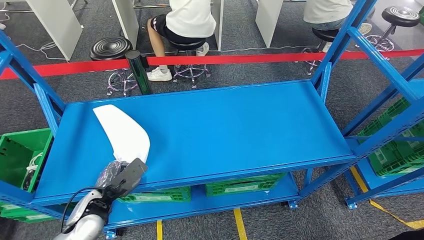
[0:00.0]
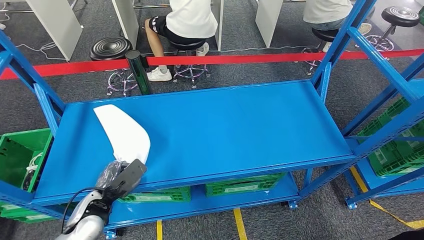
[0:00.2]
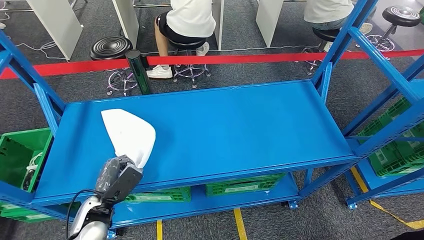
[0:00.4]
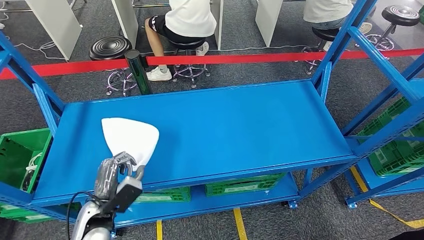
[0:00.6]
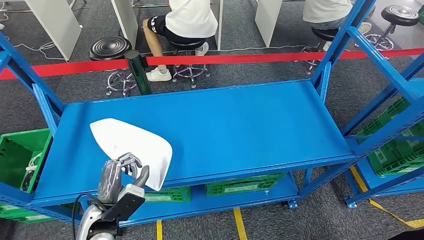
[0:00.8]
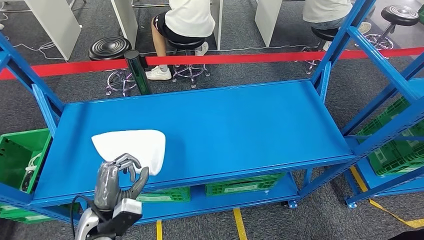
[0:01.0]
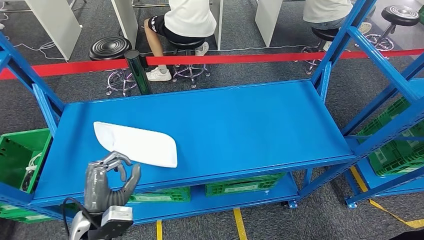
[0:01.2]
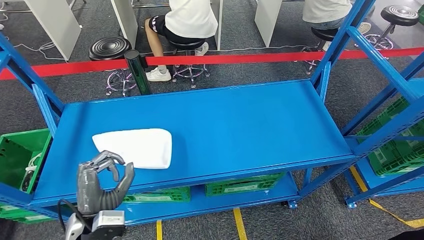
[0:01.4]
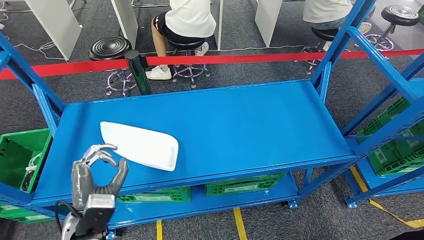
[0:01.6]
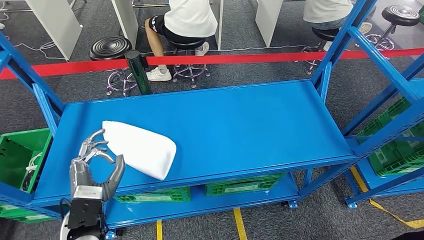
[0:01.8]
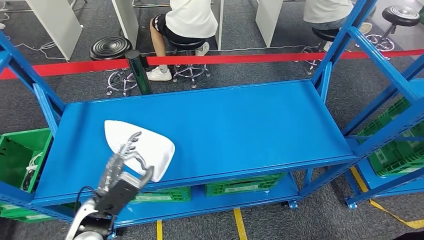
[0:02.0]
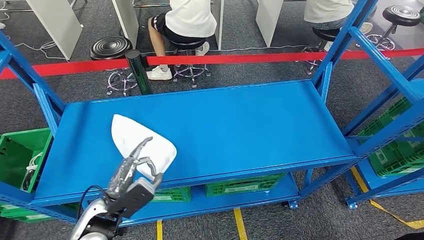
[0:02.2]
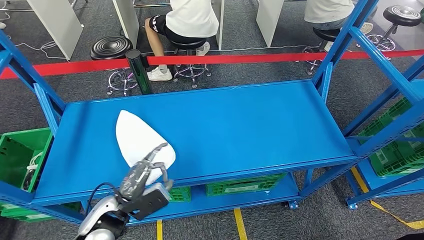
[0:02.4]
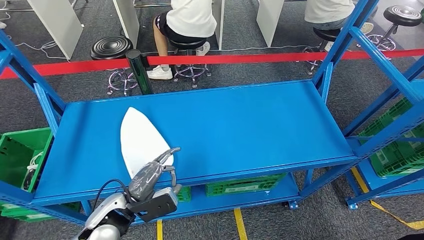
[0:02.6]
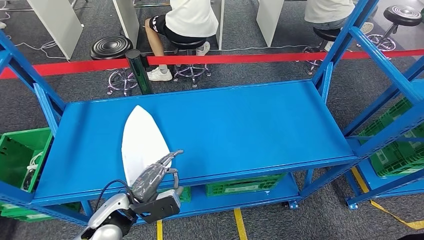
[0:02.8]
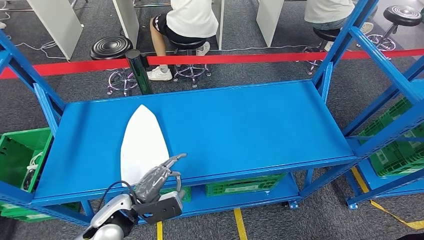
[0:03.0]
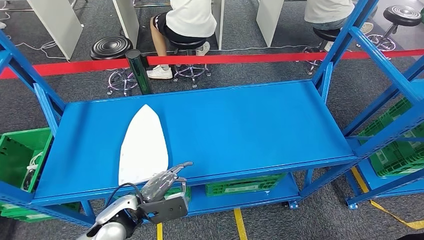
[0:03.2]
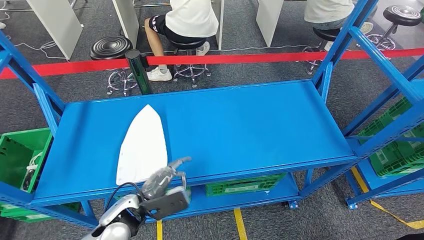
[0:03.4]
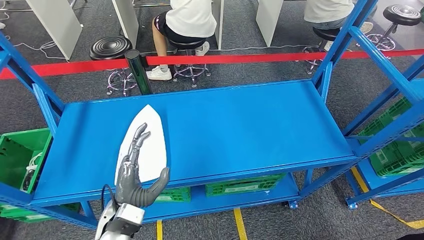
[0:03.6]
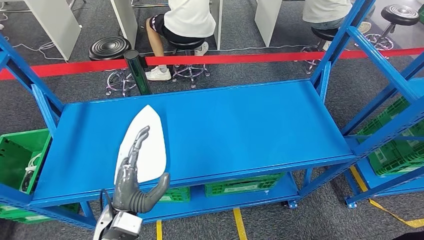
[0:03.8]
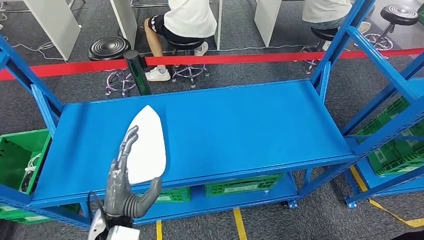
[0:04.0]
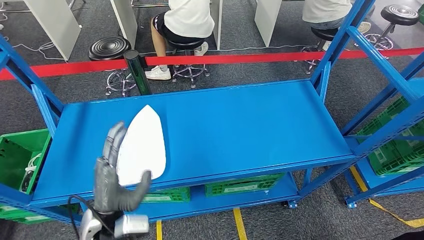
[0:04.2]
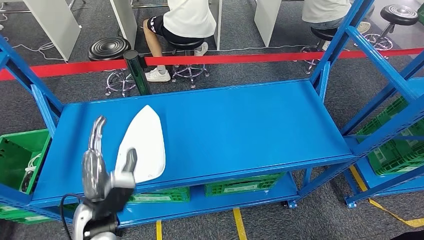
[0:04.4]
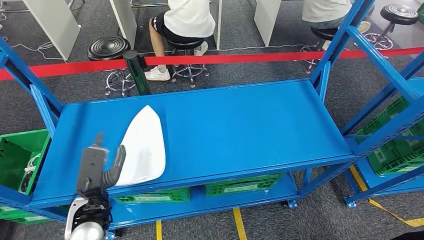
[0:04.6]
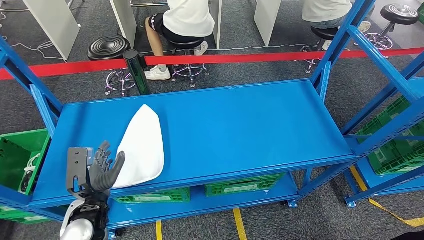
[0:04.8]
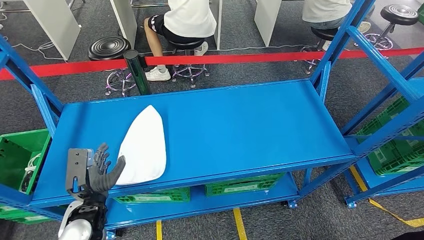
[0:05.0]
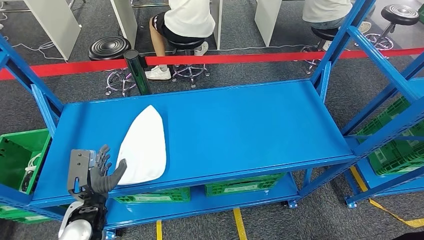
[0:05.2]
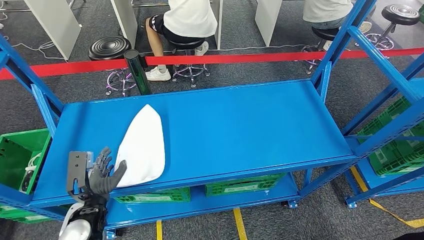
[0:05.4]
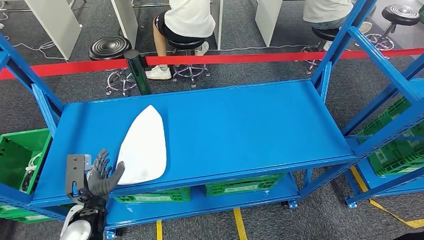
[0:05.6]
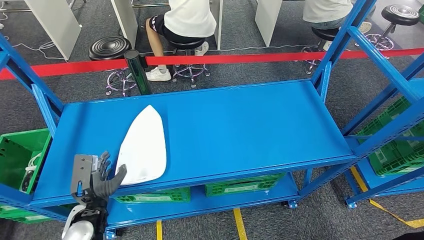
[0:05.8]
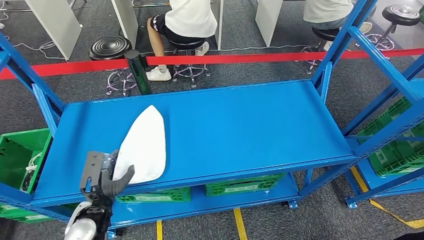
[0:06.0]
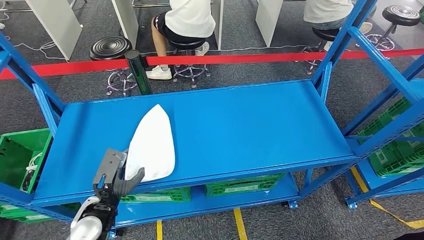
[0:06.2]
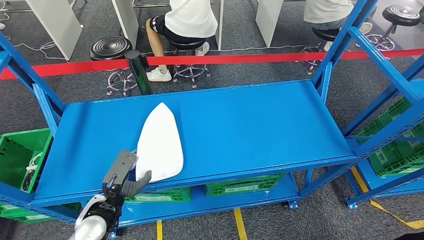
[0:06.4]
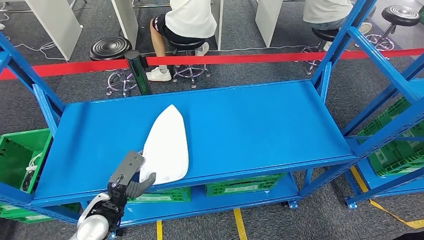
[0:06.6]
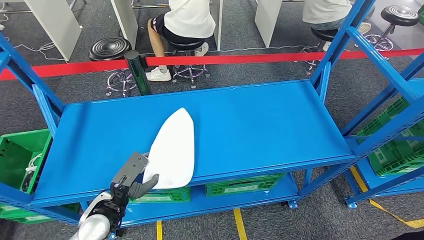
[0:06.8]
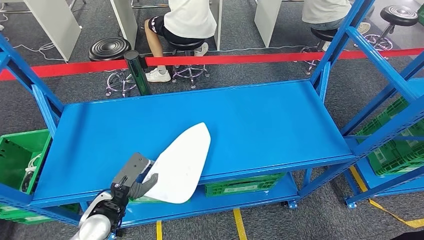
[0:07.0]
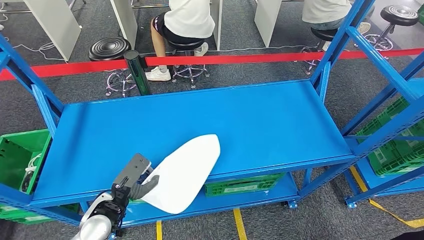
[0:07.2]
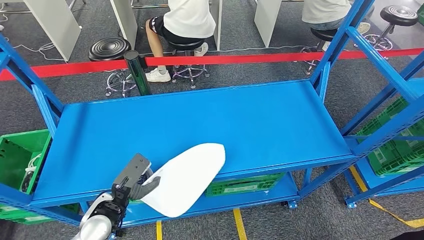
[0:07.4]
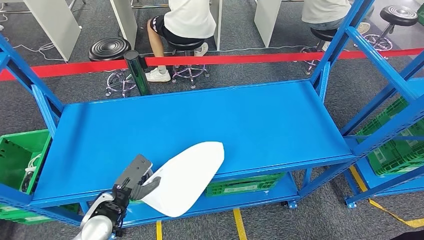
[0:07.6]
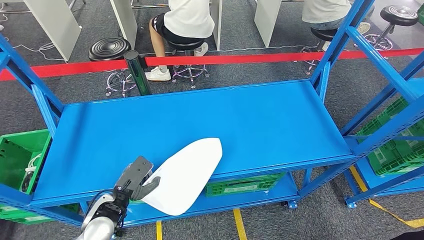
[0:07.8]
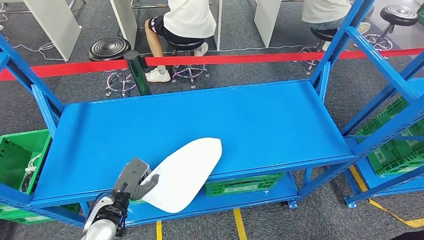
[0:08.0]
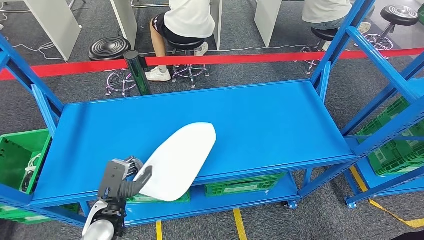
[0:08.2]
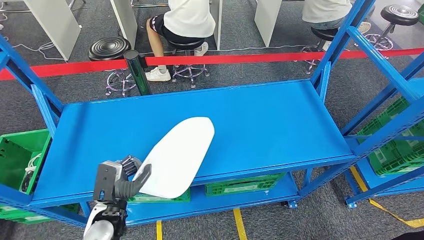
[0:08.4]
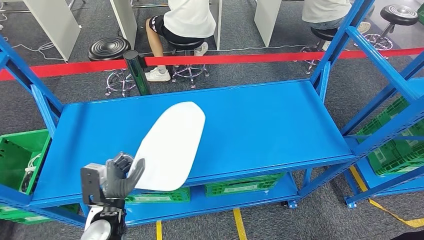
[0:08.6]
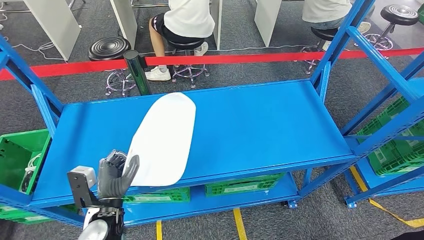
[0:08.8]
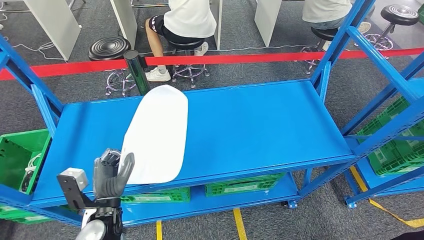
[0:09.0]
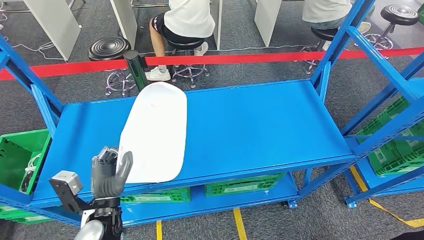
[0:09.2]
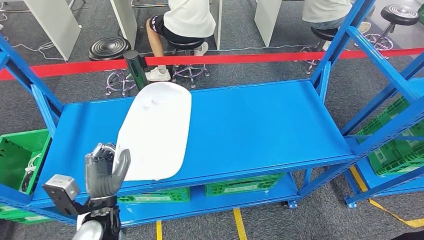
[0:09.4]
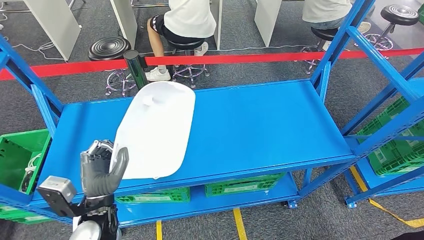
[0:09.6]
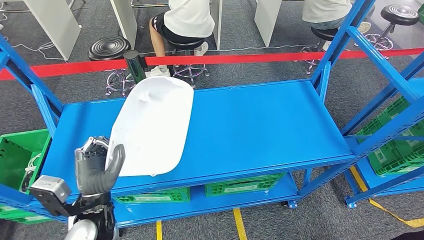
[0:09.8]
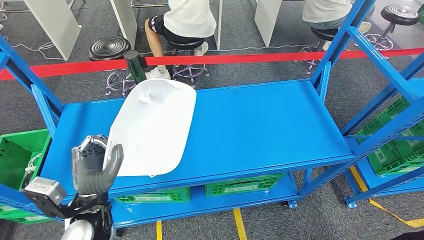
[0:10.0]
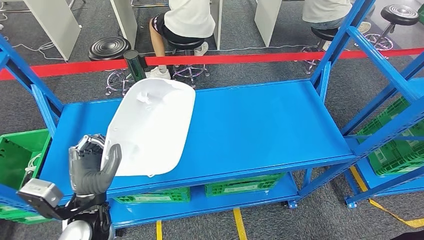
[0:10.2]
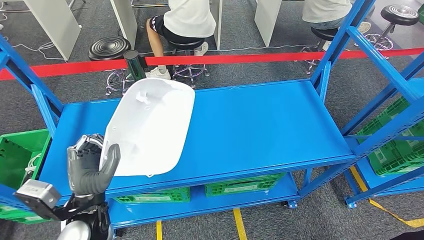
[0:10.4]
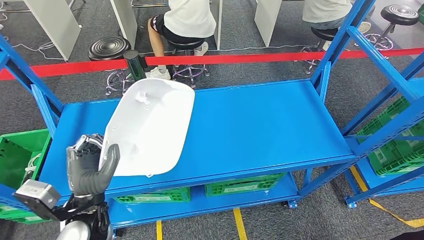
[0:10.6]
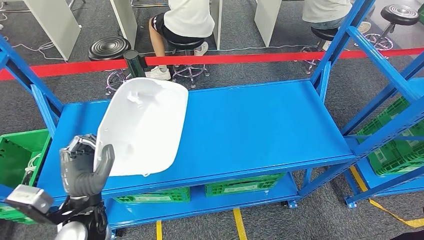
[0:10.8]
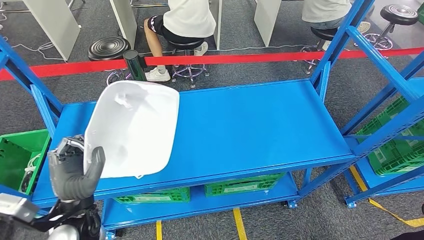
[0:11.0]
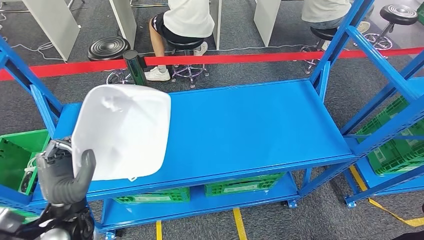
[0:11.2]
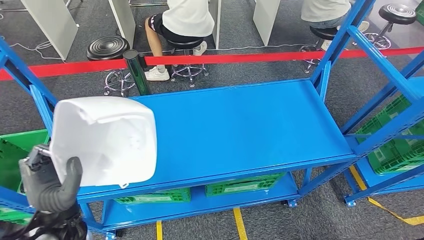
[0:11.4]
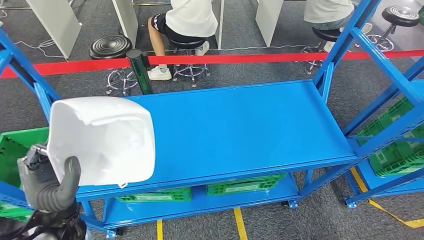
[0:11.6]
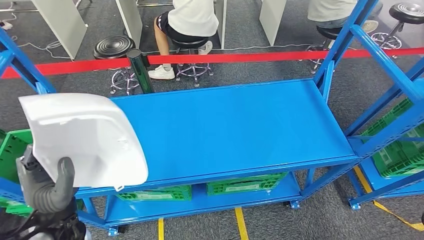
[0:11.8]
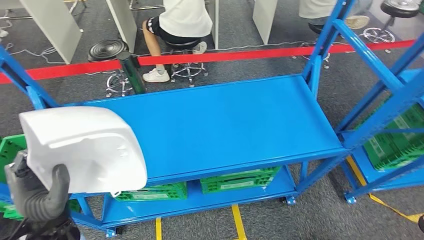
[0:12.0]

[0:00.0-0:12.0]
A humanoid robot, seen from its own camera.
Step, 0:00.0 to 0:10.8: Pick up the small parts from the shelf.
0:00.0 to 0:01.6: The left hand travels upward and backward by some 10 cm.
0:04.4 to 0:06.0: The left hand is displaced downward and to the left by about 10 cm.
0:09.0 to 0:10.4: The left hand goes roughly 5 cm upward.

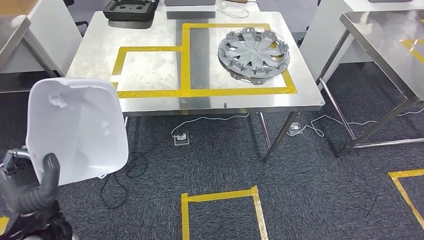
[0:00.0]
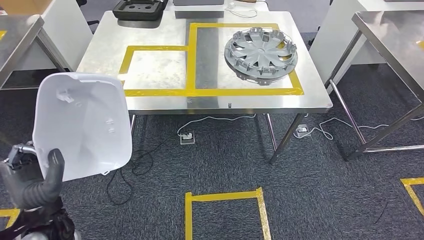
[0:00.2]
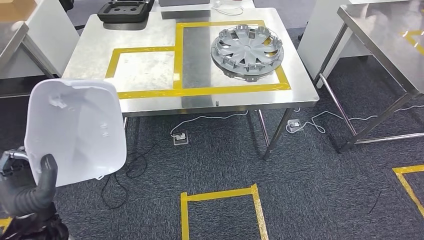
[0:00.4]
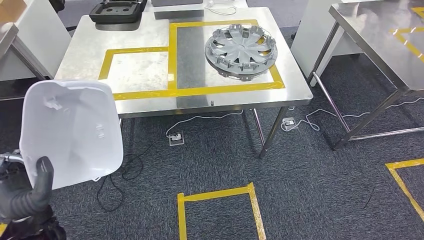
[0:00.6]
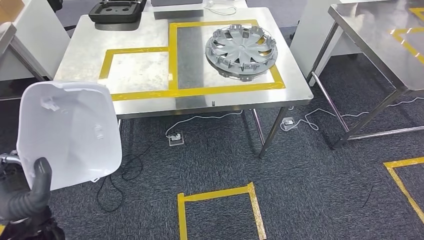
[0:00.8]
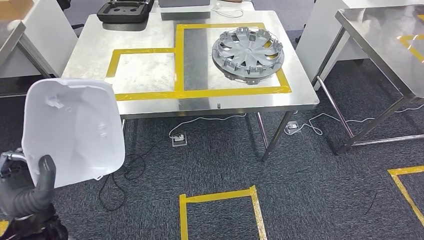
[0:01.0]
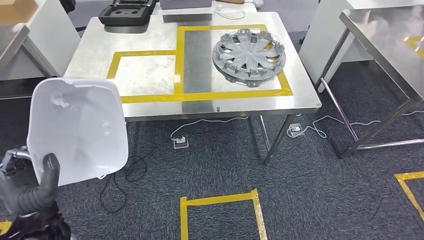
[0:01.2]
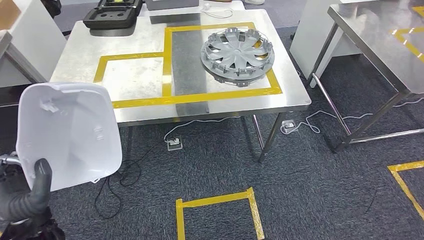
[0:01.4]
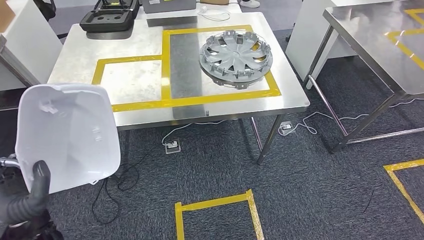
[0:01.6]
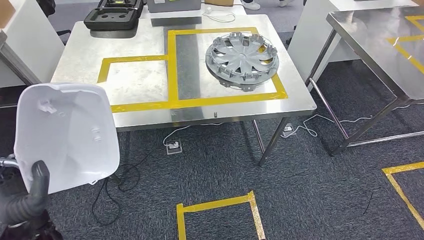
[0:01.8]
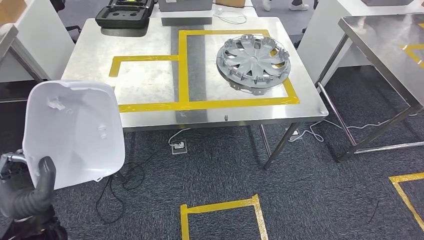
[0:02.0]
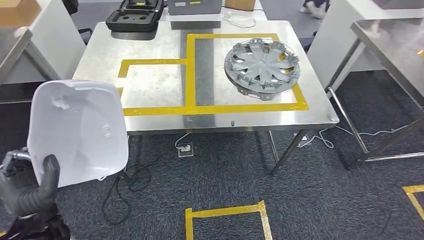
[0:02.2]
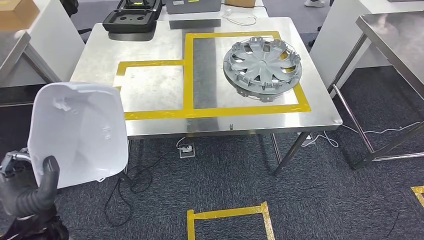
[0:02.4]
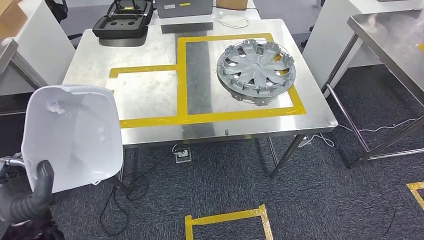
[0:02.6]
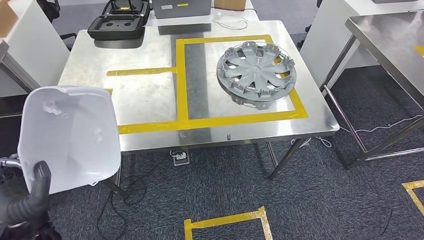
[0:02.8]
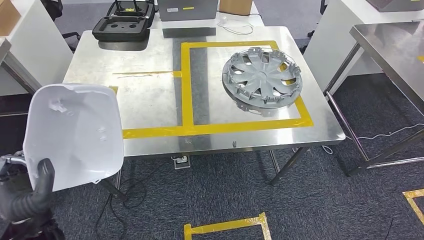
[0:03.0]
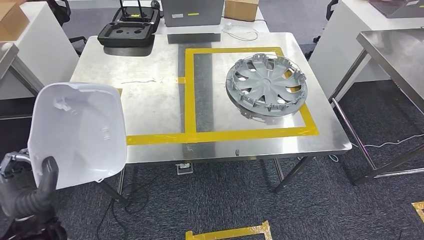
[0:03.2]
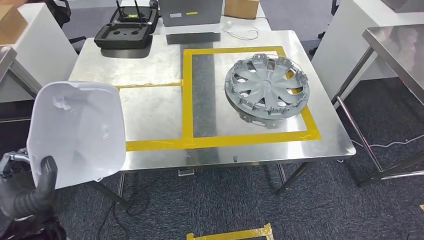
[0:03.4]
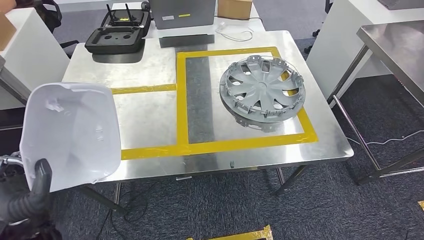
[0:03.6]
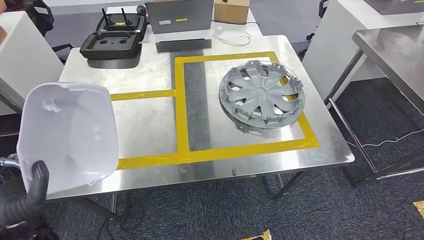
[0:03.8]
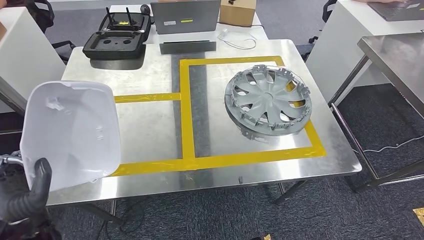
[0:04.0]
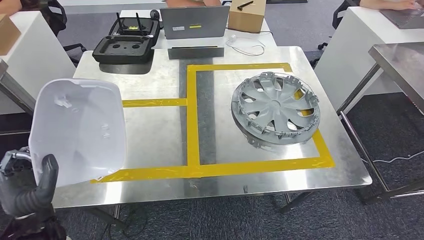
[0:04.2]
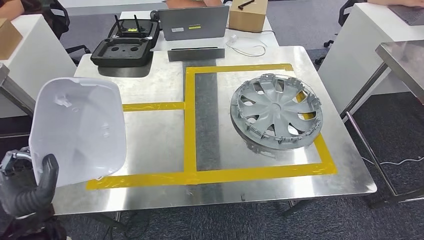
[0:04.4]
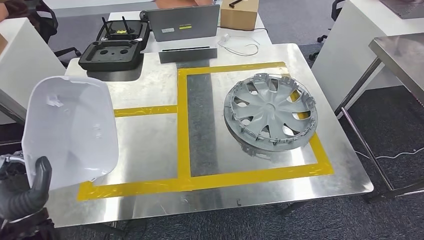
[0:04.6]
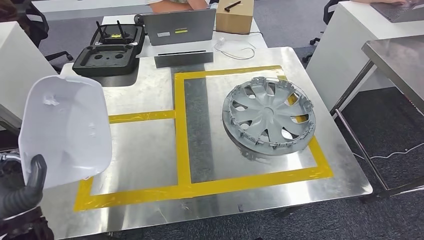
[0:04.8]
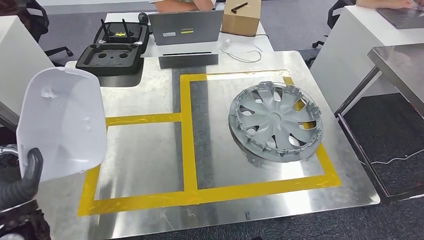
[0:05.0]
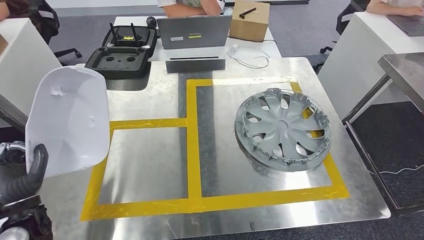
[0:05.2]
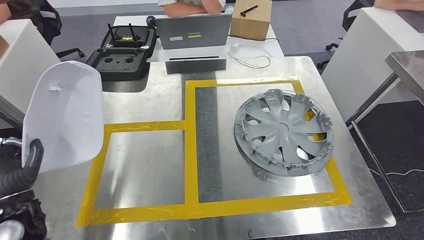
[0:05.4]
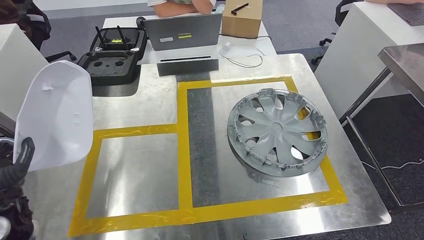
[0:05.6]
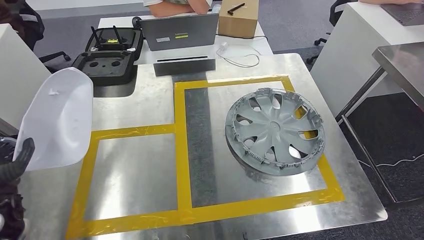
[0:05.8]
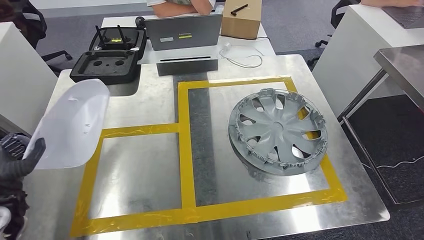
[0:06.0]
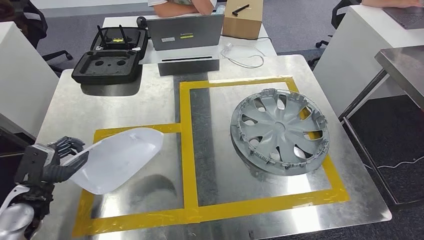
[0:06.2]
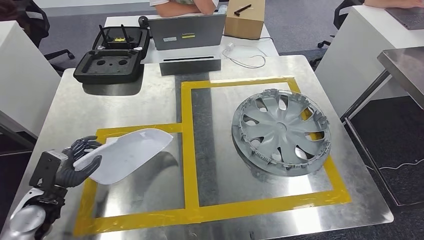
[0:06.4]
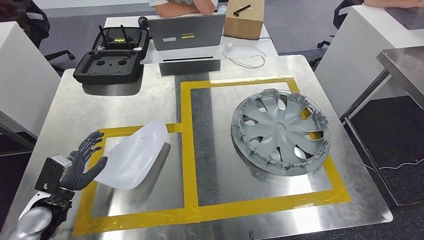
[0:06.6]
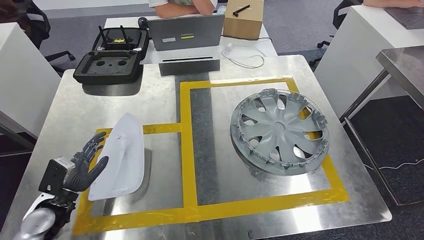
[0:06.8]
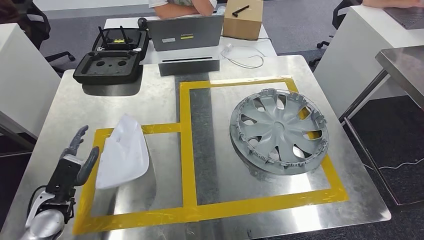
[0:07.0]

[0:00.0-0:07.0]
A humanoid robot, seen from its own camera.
Step, 0:00.0 to 0:04.8: Move the small parts to the workbench.
